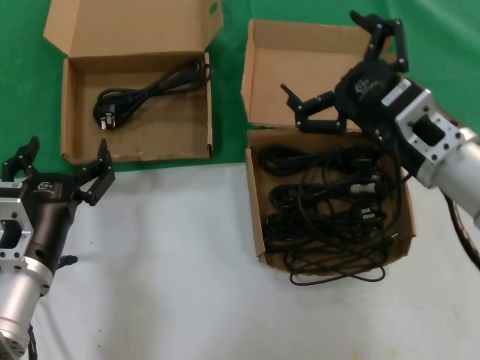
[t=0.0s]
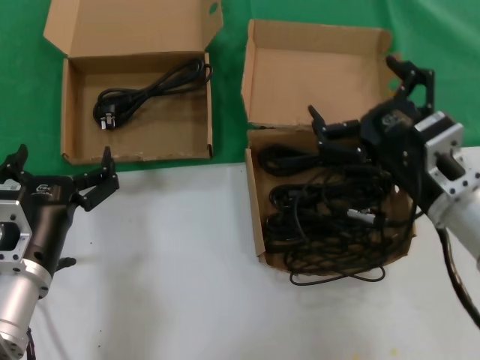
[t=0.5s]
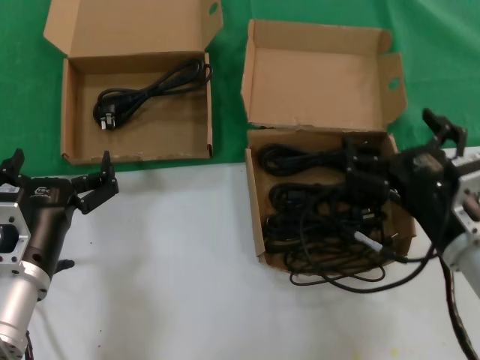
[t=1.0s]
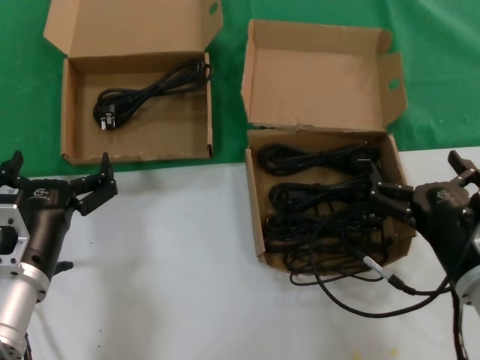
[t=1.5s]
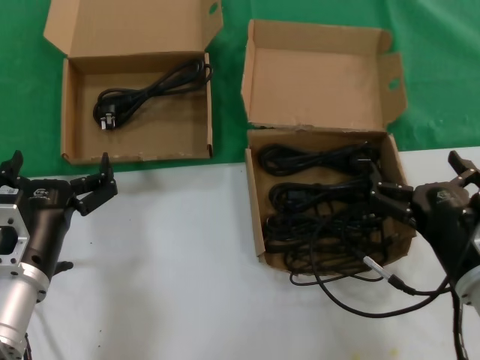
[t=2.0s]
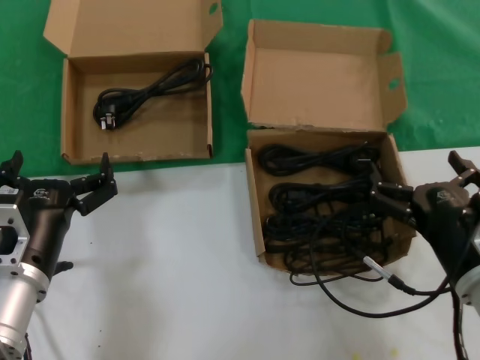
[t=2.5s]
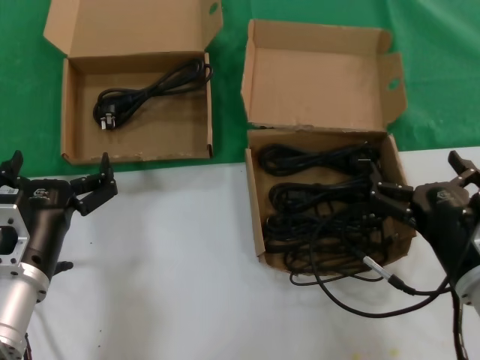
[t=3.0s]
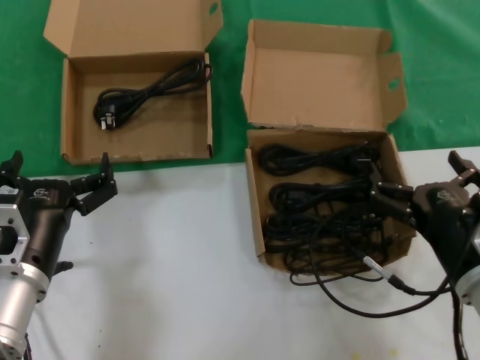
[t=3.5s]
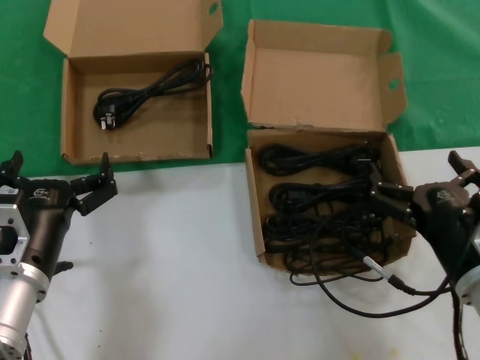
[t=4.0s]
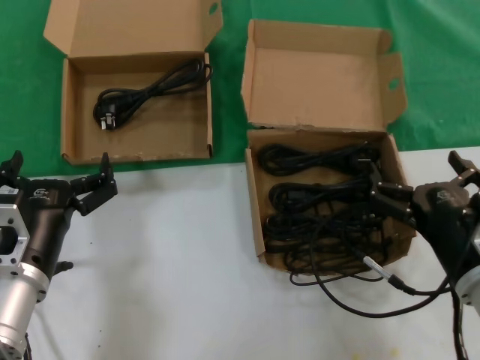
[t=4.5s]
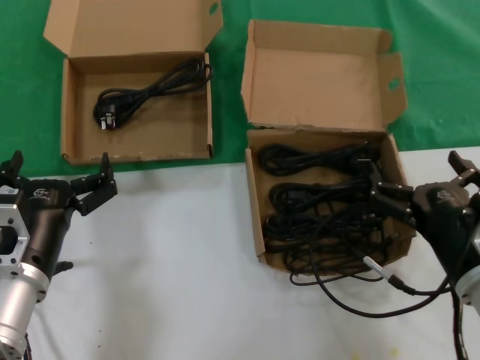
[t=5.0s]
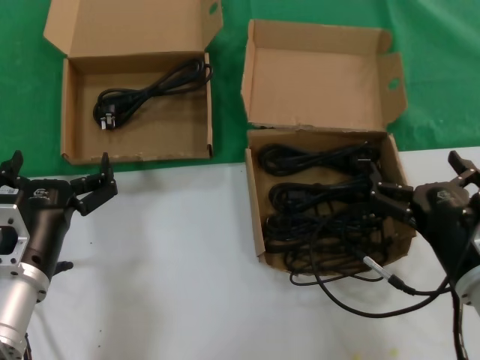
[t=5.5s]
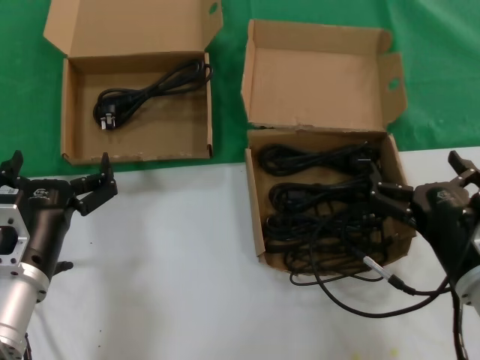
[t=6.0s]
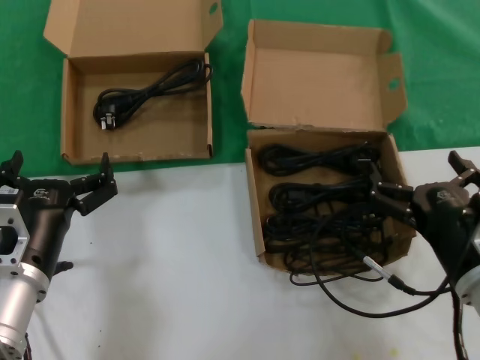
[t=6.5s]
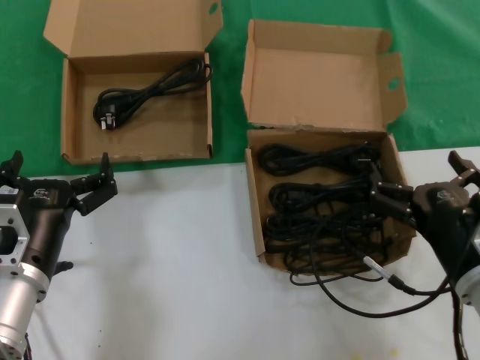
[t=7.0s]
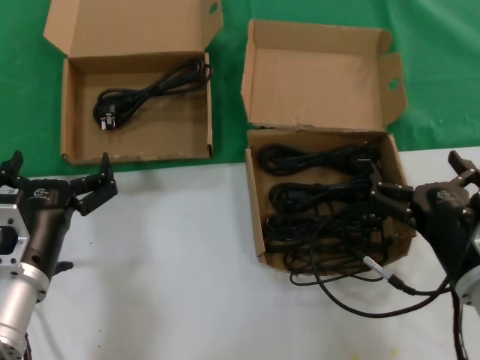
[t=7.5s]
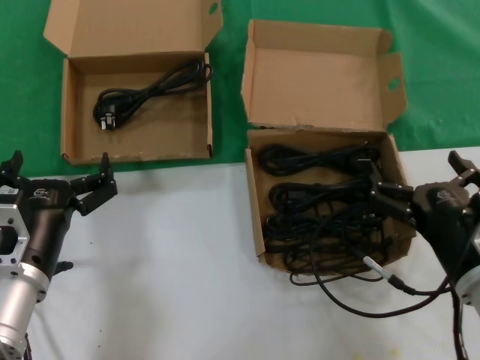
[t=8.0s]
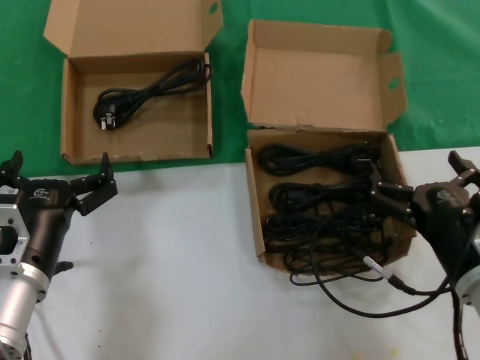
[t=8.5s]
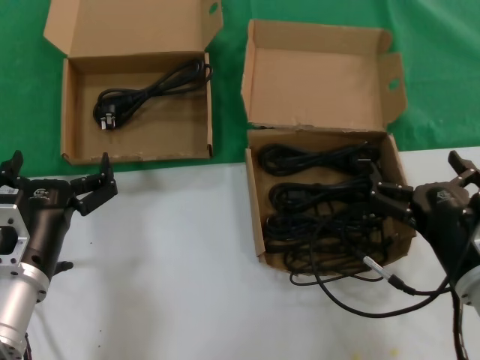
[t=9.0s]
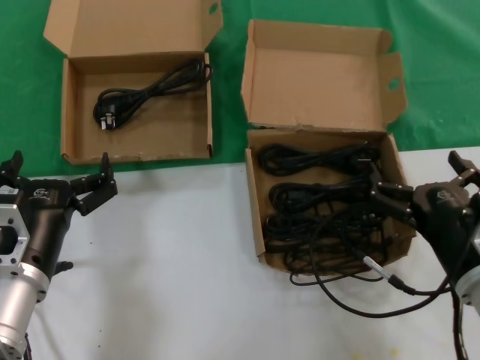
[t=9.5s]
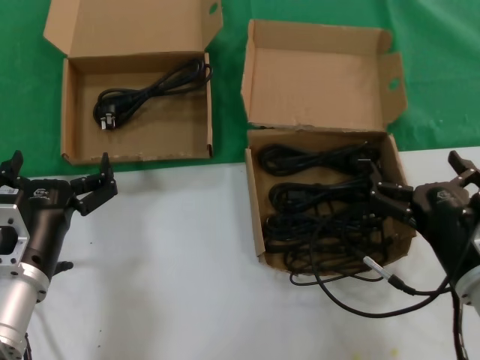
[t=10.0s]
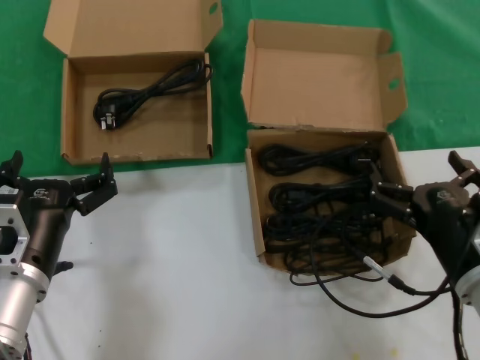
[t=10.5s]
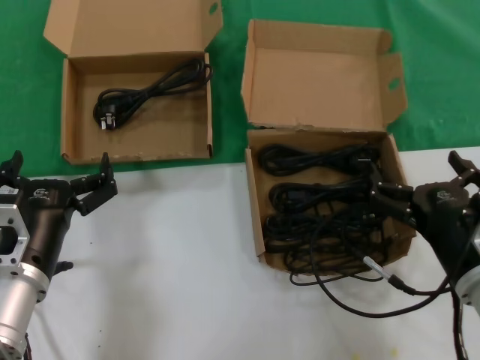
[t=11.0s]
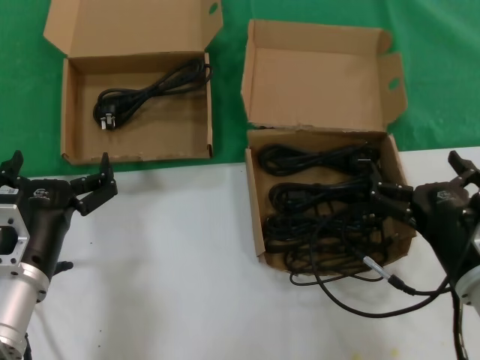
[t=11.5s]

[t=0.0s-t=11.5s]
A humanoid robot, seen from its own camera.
Task of the whole recording: take the parts from the box containing them and put them into an empty box.
t=0.0s to t=2.0s: The right hand travels downward and backward by some 15 cm.
t=2.0s to t=11.5s: The two hands keep their place.
